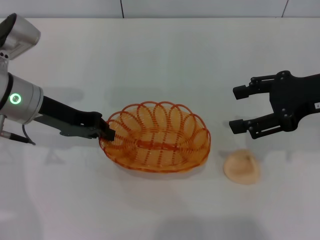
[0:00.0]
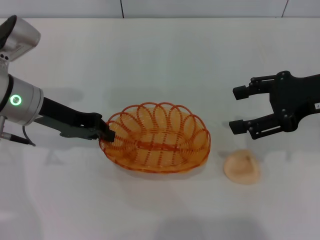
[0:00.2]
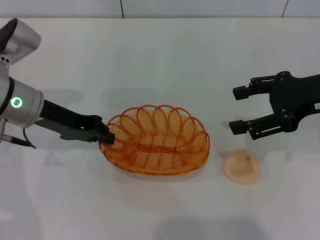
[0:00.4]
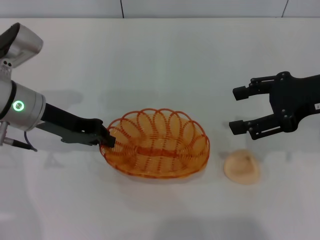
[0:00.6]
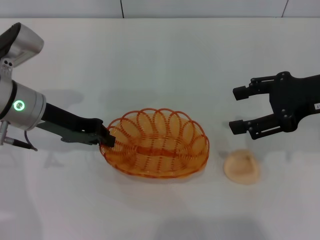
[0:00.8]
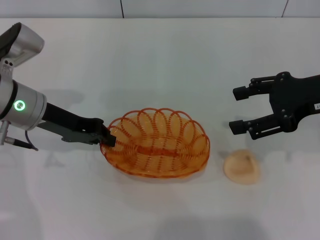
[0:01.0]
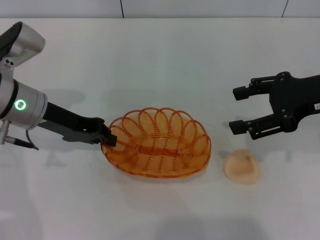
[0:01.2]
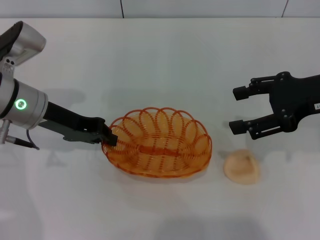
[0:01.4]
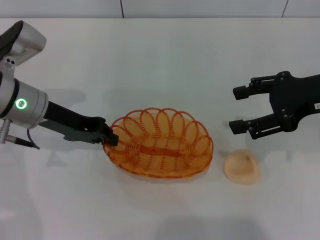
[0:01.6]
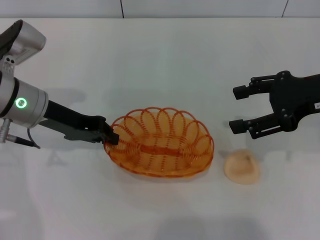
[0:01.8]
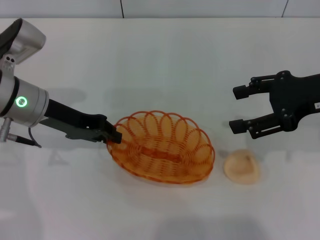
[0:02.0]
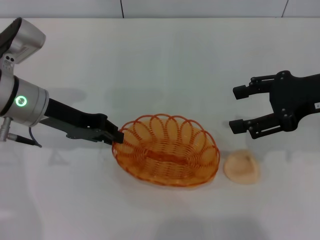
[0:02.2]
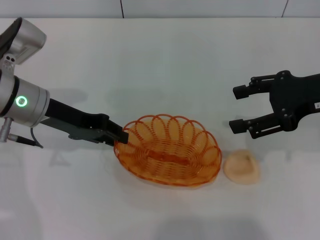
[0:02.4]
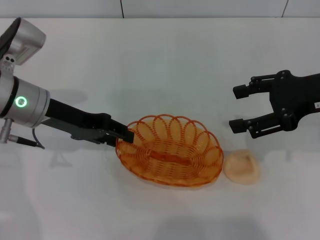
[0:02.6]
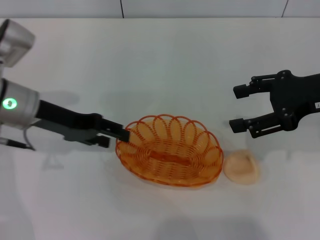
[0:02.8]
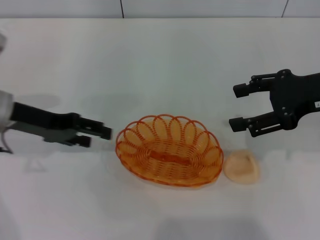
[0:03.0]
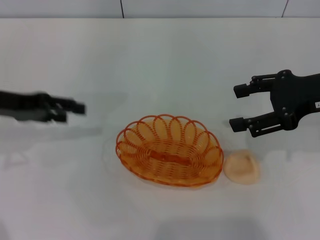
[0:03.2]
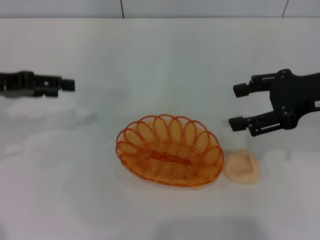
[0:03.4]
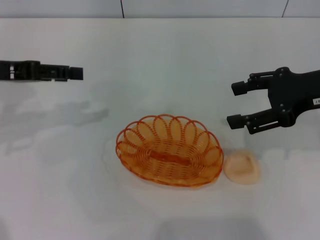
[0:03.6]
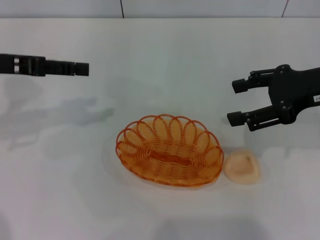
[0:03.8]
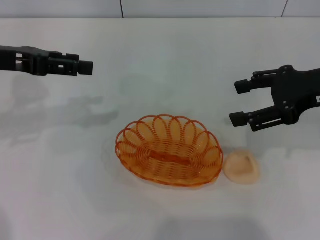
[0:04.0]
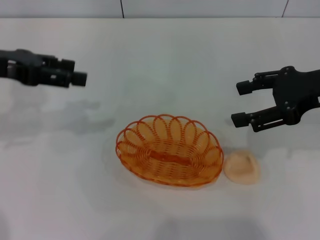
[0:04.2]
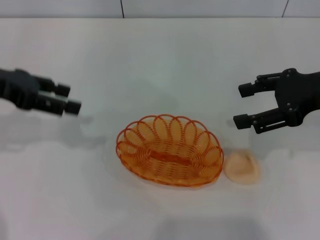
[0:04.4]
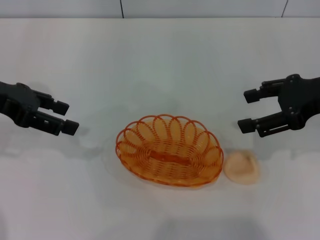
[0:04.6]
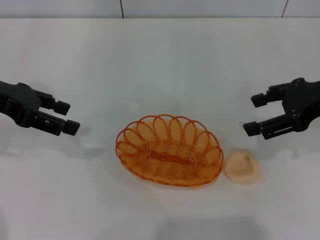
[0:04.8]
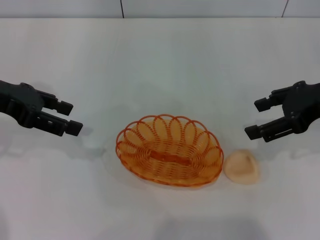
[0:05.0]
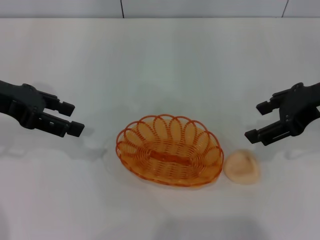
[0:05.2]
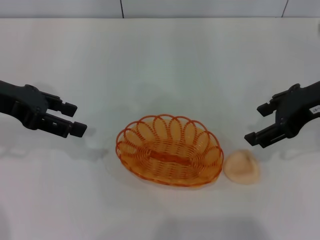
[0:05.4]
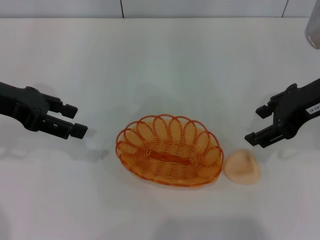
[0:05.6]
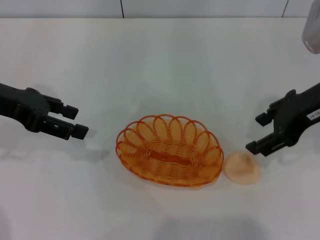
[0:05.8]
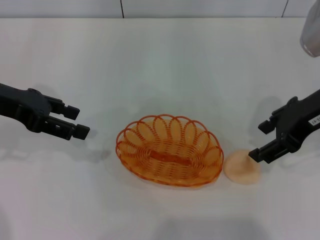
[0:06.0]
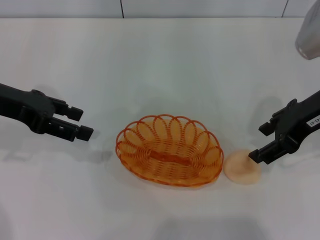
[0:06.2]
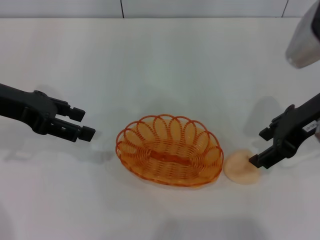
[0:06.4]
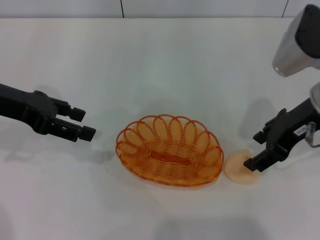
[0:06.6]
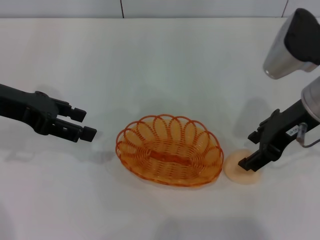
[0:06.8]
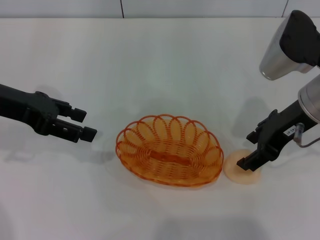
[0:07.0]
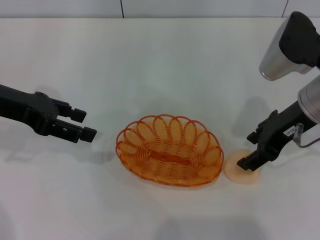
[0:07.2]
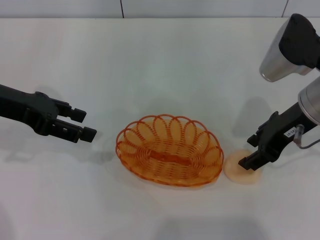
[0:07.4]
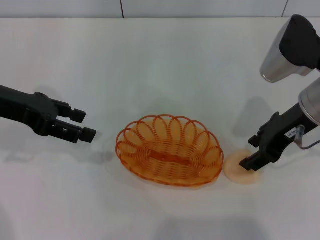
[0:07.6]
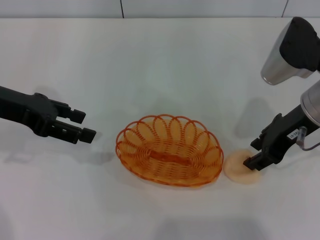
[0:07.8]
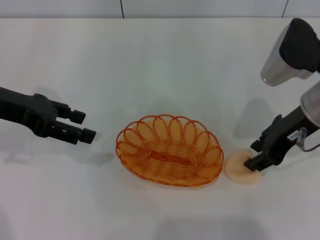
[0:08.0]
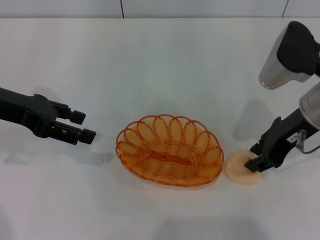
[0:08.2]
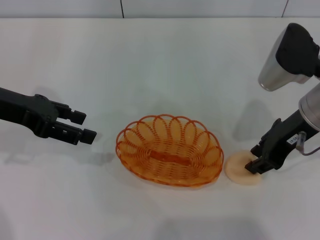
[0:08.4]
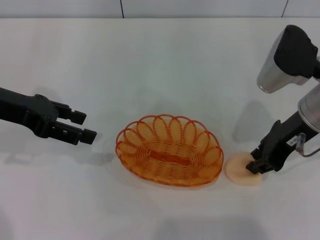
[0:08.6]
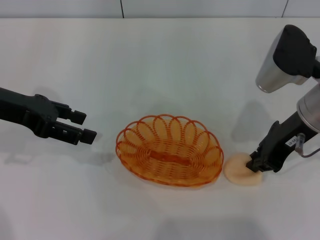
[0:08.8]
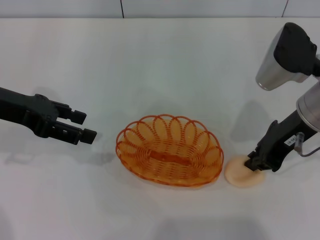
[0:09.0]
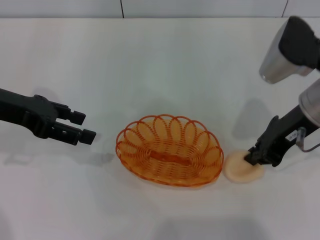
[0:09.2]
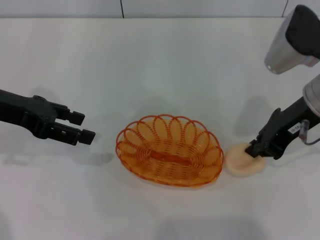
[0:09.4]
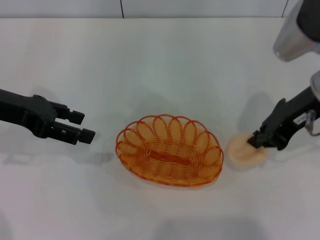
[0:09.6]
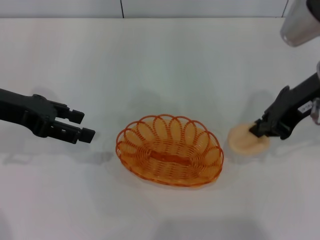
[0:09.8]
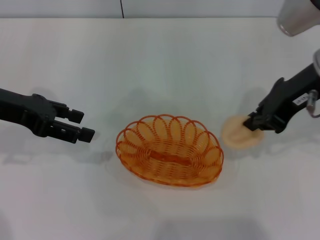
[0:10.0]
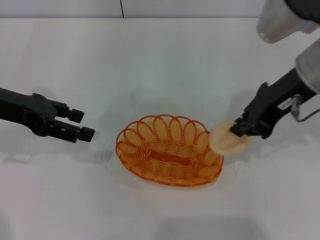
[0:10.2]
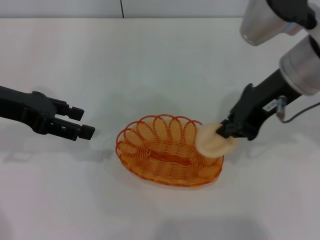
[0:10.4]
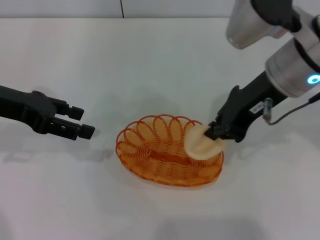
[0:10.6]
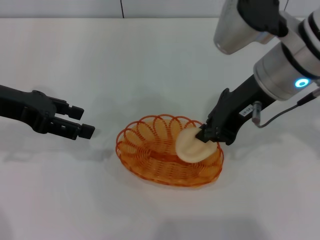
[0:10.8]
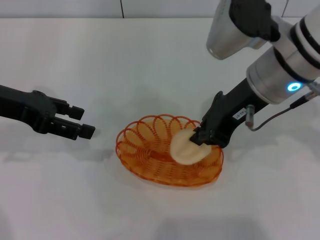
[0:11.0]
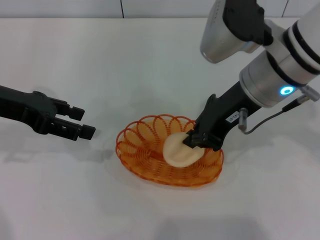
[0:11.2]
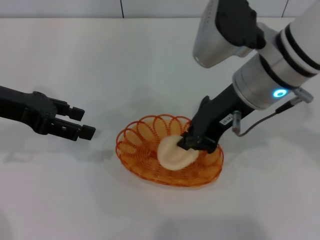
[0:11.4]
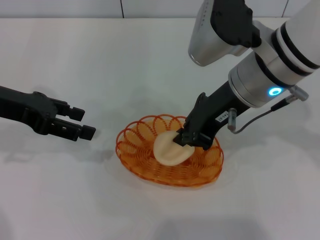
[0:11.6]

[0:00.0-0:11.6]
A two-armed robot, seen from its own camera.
Step, 0:00.0 to 0:02.8: Place the basket in the center of view with the left gripper.
Step, 0:03.0 to 0:09.8: Pick up the egg yolk pastry with the right gripper.
0:00.0 to 0:01.4: Neither gripper changes place.
0:01.4 to 0:02.8: The left gripper opens its fingers.
0:02.8 to 0:04.4: The left gripper travels upward and to the left by about 10 cm.
0:04.4 to 0:05.8: The right gripper shifts by some 5 cm.
0:05.8 to 0:07.2: The right gripper shifts by about 5 cm.
0:07.2 to 0:08.8: The right gripper closes its fingers.
0:08.8 to 0:10.2: The right gripper moves upward, about 5 cm, and closes its fingers.
0:10.2 to 0:11.6: The right gripper shifts approximately 5 cm to the left.

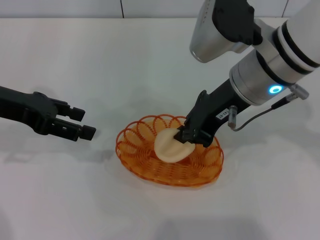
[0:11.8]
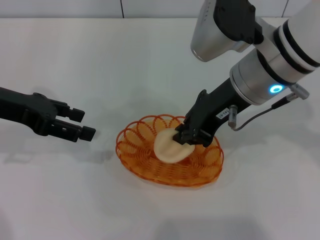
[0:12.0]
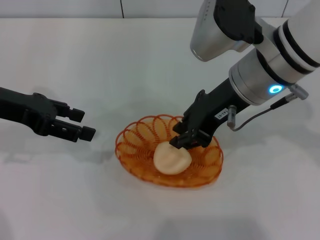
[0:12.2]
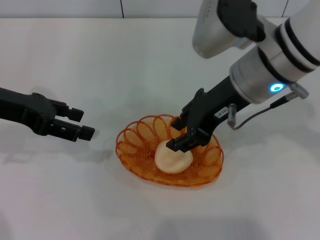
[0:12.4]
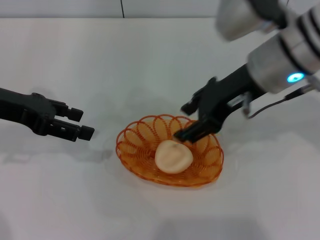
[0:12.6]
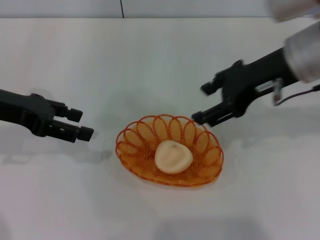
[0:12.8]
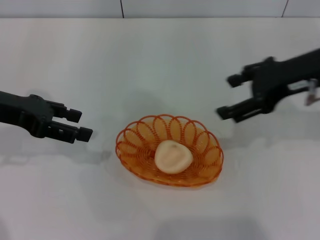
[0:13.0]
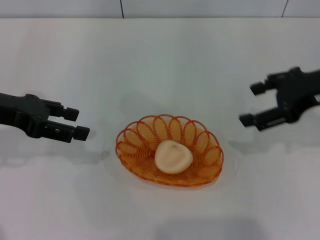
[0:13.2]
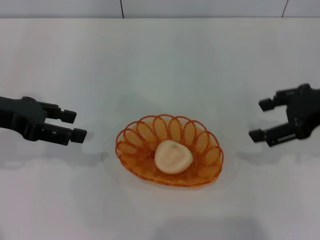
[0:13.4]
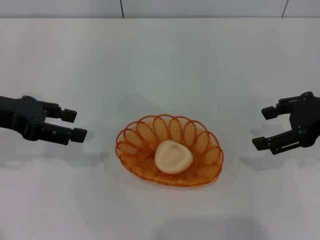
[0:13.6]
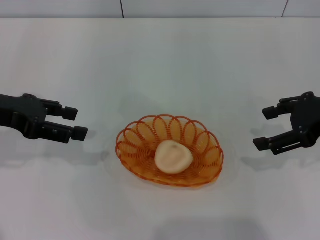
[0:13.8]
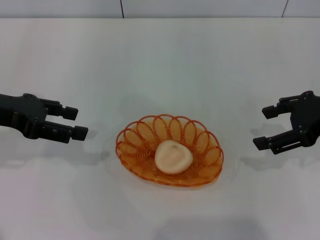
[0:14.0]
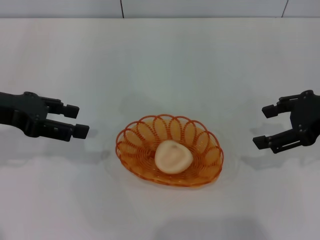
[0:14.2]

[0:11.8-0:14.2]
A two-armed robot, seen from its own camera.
0:11.8 to 0:13.0: The right gripper heads to the right, covering roughly 10 cm, and opens its fingers.
0:13.0 to 0:14.2: The right gripper heads to the right, covering some 5 cm.
